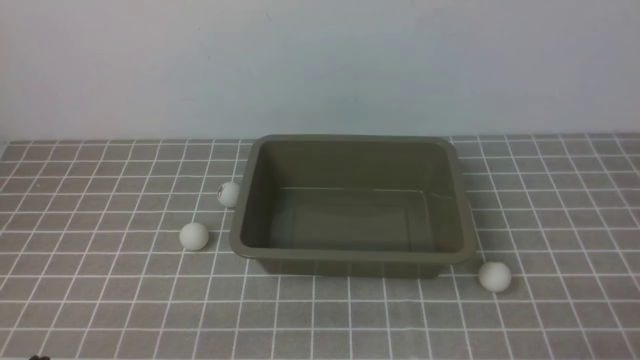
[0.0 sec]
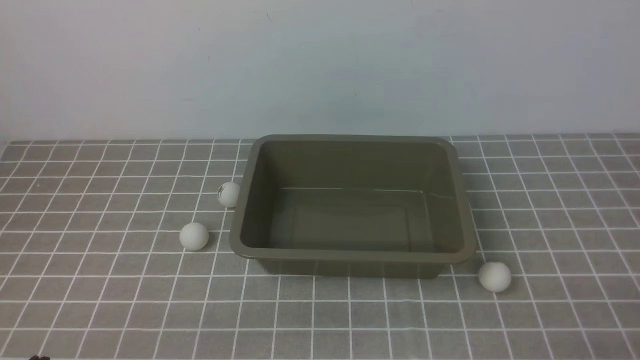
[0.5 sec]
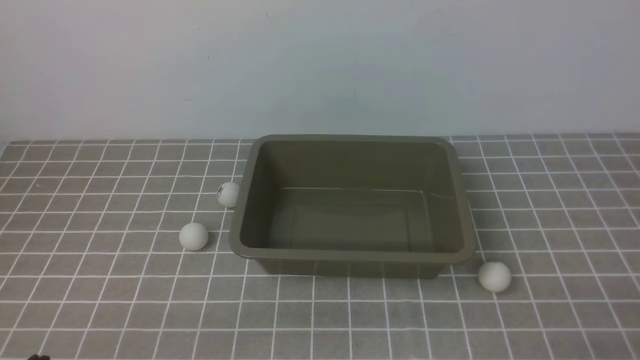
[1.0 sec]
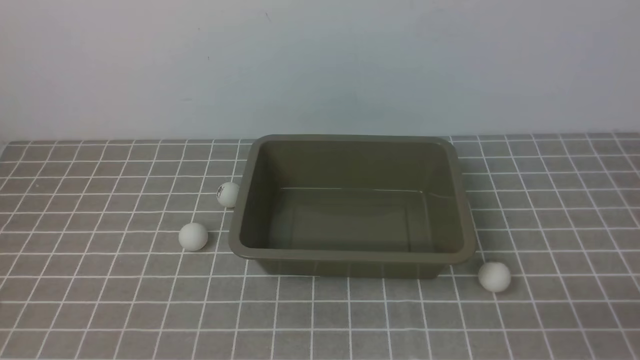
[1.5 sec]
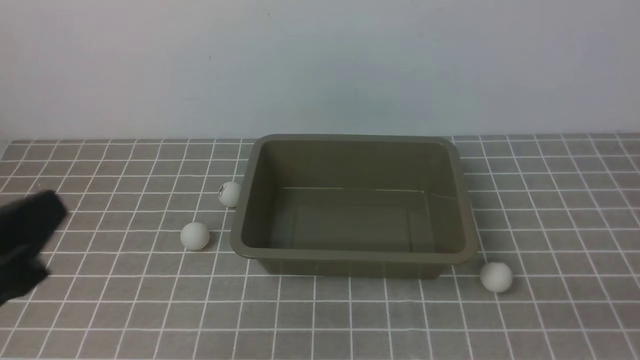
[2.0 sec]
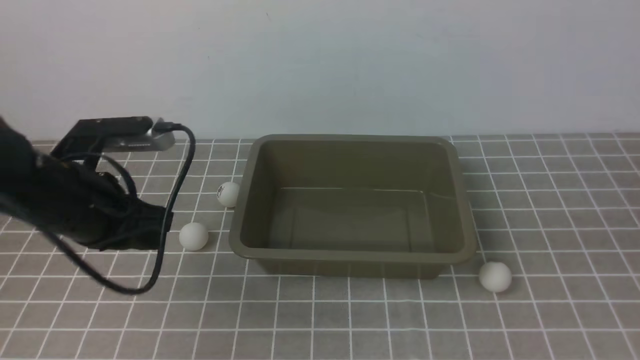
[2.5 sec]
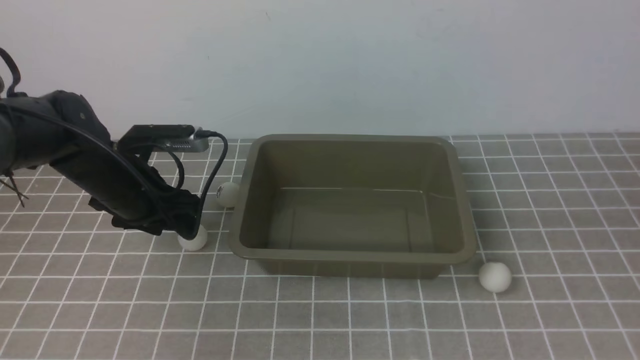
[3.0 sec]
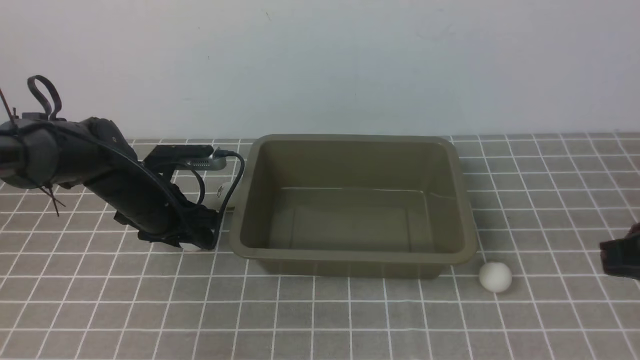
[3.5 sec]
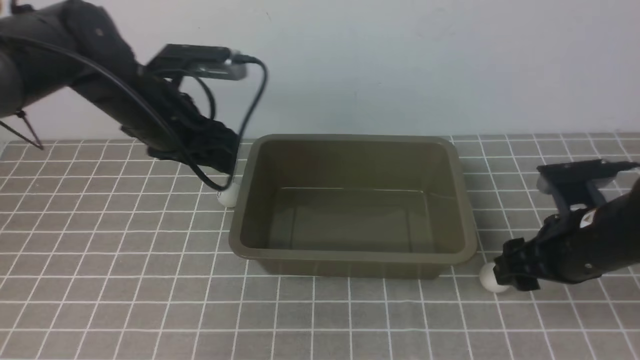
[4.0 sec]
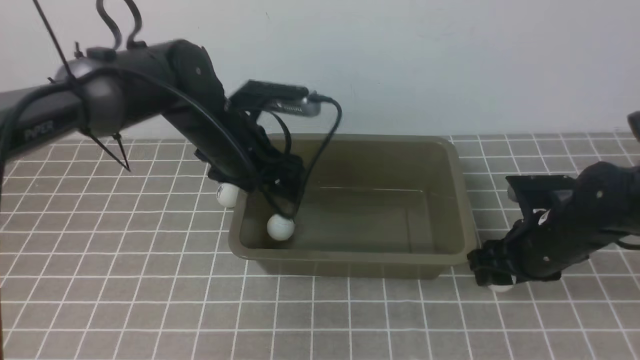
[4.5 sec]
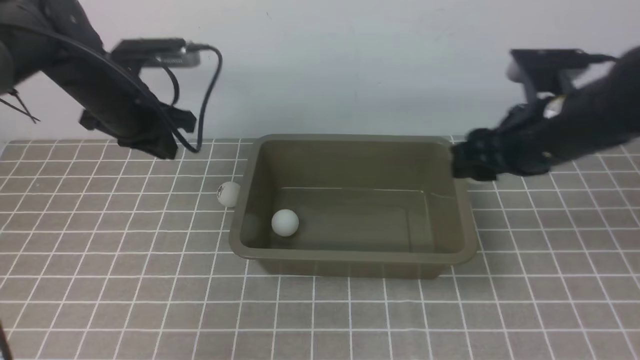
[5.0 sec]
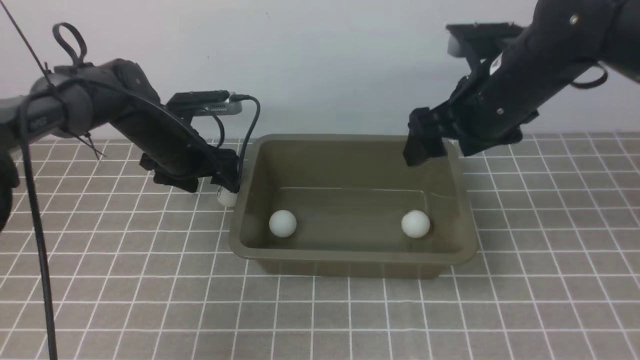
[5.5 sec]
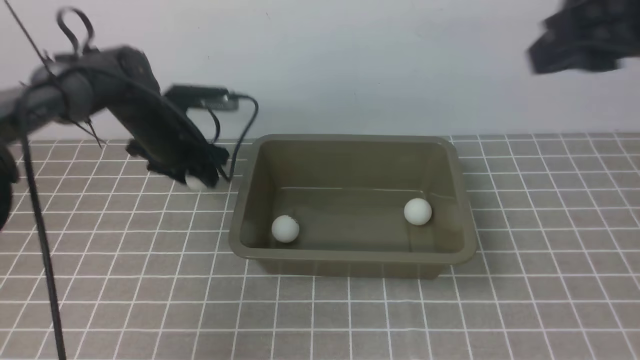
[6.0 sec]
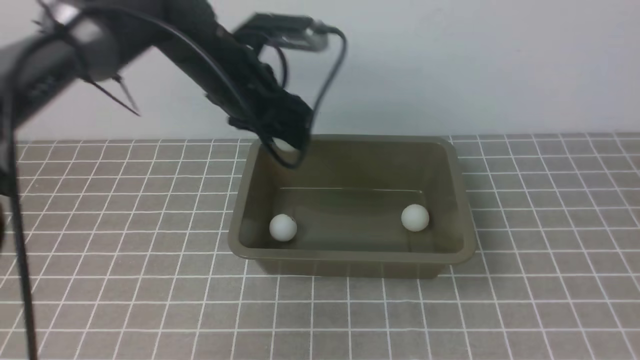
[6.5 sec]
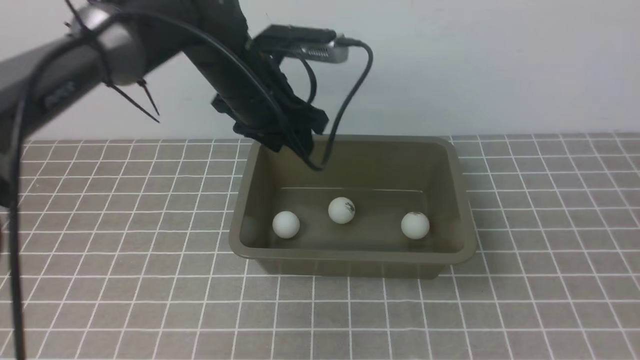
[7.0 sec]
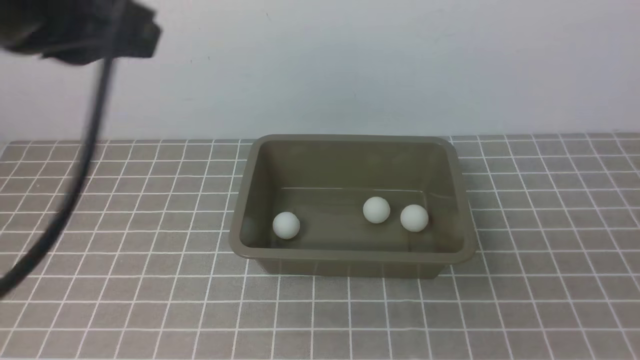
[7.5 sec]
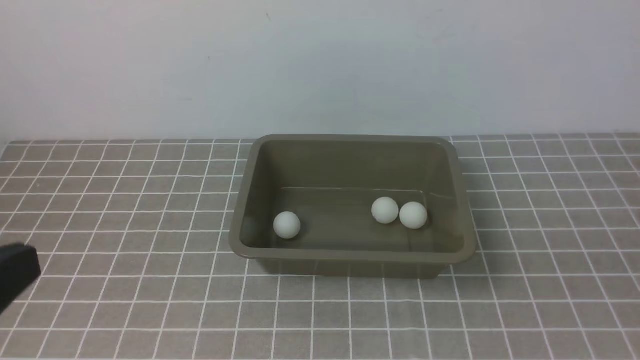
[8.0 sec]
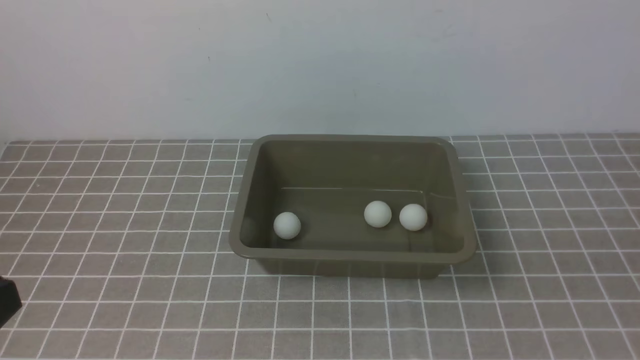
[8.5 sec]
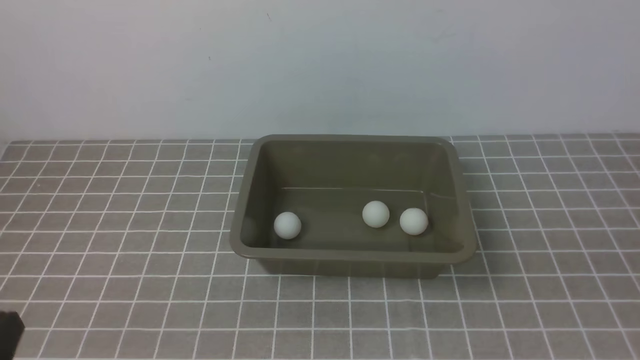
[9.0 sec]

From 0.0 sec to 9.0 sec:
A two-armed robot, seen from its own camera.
Step, from 0.0 sec to 3.5 sec: use the left arm to clamp the table tennis ball closest to it.
Step, from 5.5 sec to 6.0 sec: use the left arm to clamp the table tennis ball closest to it.
From 0.0 sec to 2.0 sec: The left gripper is displaced upward and forward by about 15 cm.
From 2.0 sec to 4.5 sec: Both grippers travel together forward, approximately 25 cm. The right gripper opens its fingers. The left gripper opens.
From 4.5 sec to 7.0 sec: The right gripper is displaced backward and upward by approximately 30 cm, and closes, while the left gripper travels upward by roughly 10 cm.
From 7.0 sec to 9.0 sec: The left gripper is displaced backward and to the left by about 40 cm, and closes its fingers.
